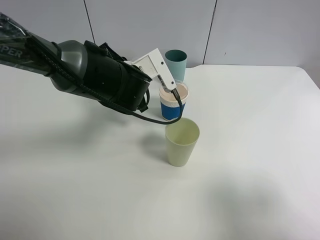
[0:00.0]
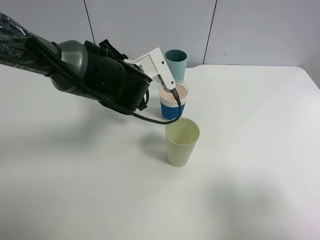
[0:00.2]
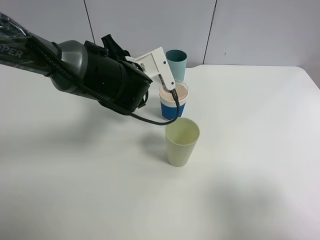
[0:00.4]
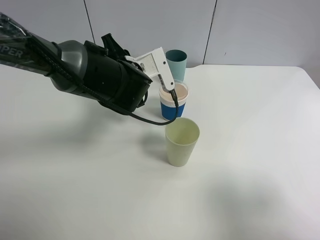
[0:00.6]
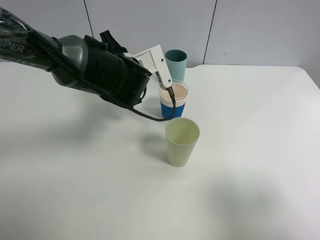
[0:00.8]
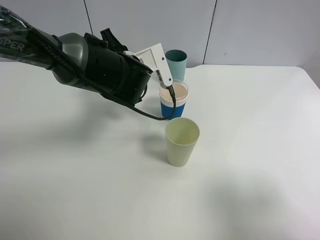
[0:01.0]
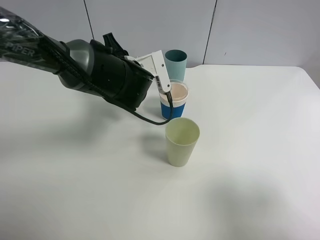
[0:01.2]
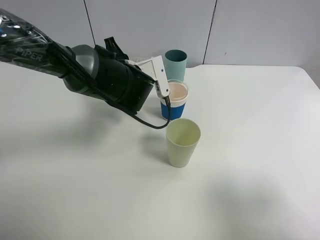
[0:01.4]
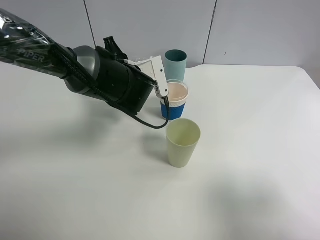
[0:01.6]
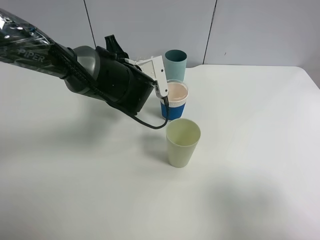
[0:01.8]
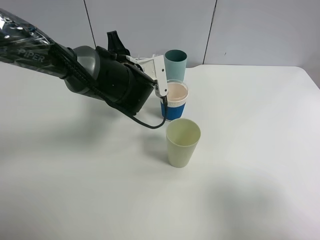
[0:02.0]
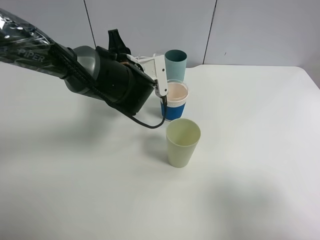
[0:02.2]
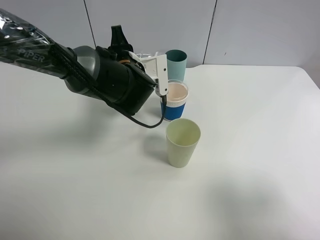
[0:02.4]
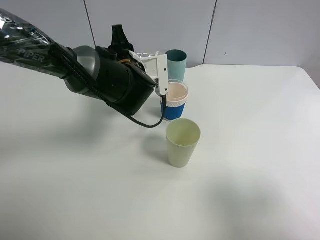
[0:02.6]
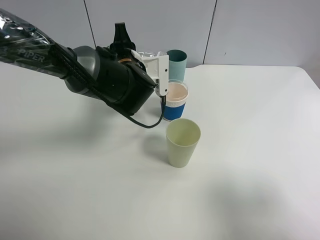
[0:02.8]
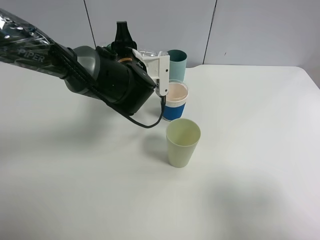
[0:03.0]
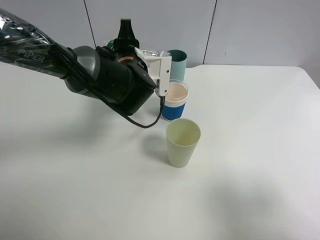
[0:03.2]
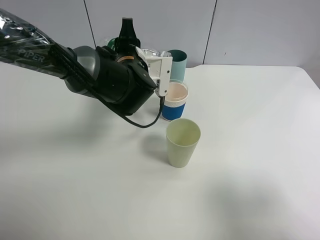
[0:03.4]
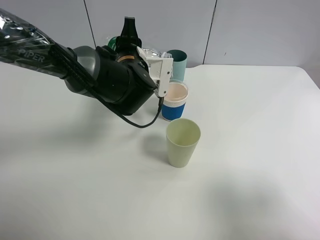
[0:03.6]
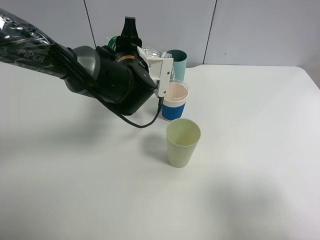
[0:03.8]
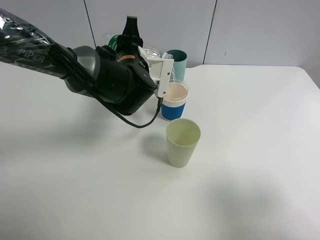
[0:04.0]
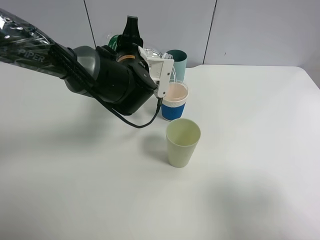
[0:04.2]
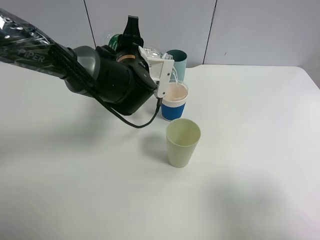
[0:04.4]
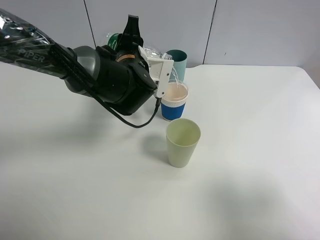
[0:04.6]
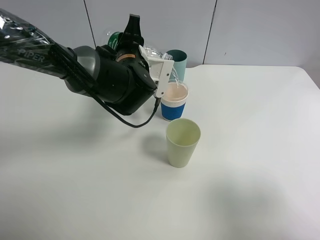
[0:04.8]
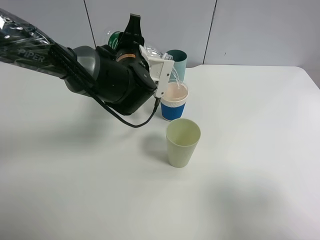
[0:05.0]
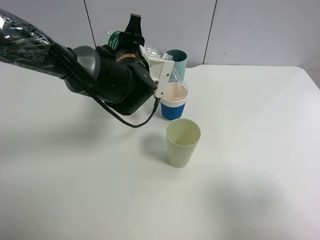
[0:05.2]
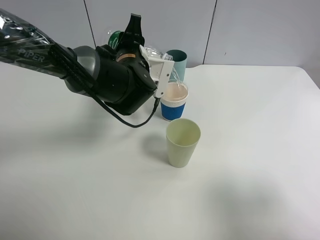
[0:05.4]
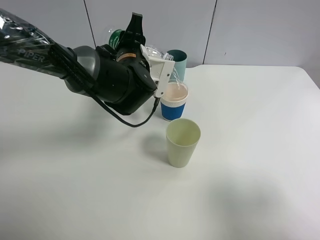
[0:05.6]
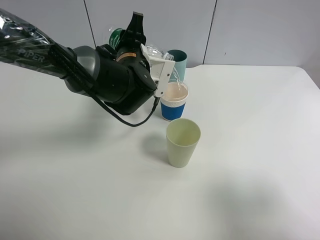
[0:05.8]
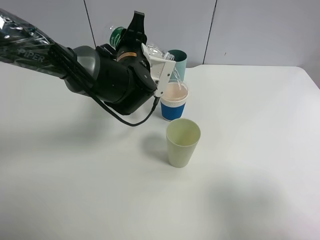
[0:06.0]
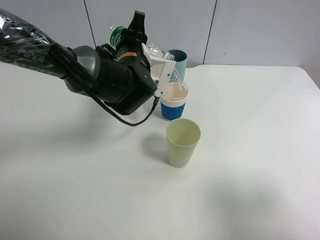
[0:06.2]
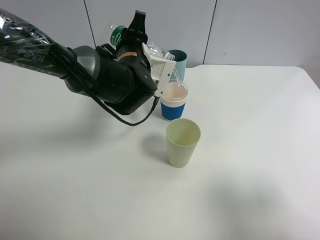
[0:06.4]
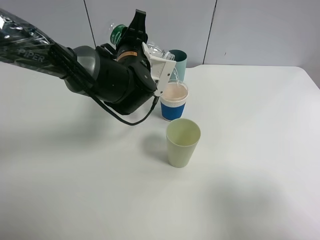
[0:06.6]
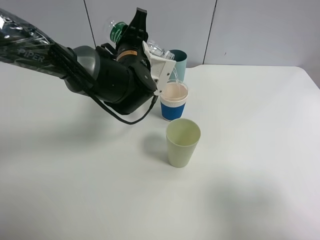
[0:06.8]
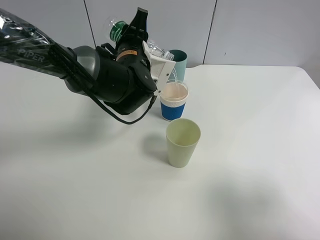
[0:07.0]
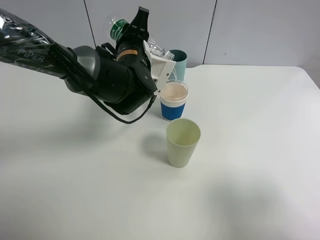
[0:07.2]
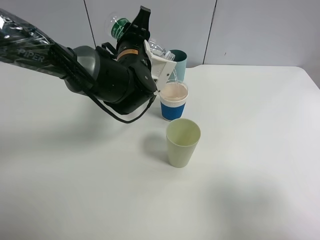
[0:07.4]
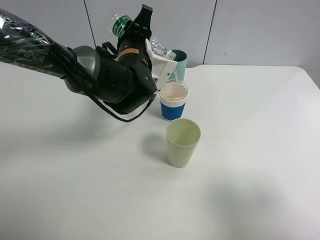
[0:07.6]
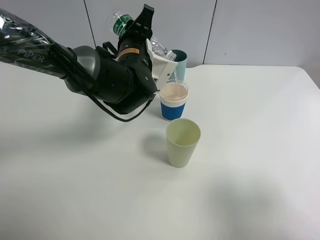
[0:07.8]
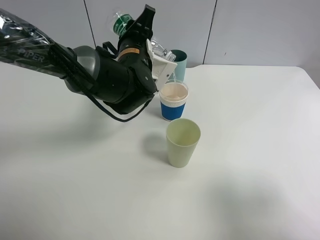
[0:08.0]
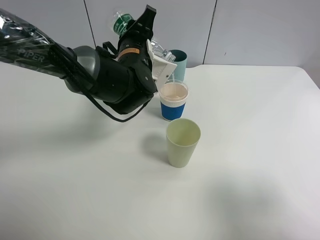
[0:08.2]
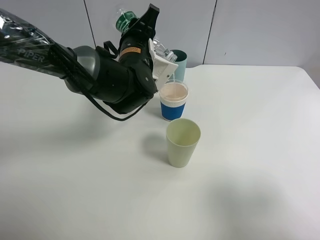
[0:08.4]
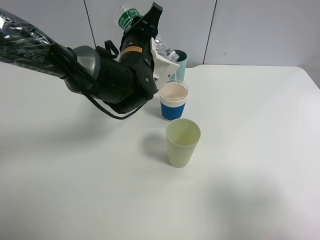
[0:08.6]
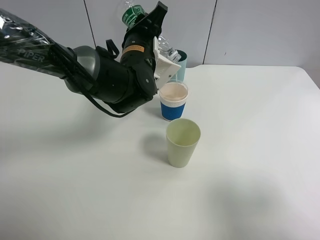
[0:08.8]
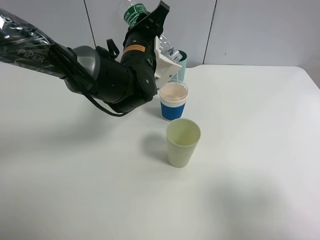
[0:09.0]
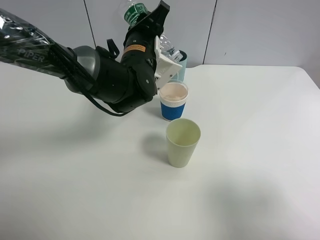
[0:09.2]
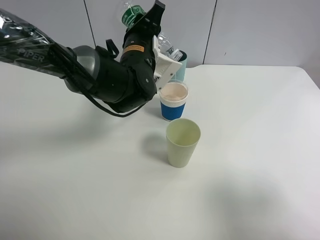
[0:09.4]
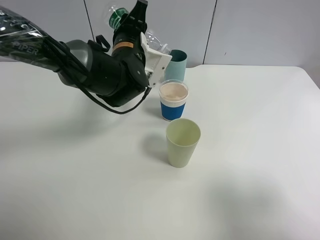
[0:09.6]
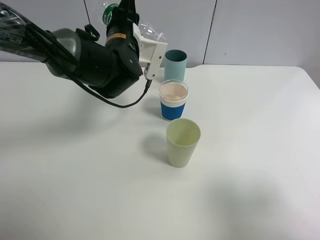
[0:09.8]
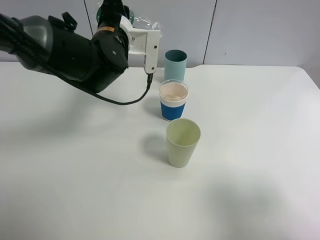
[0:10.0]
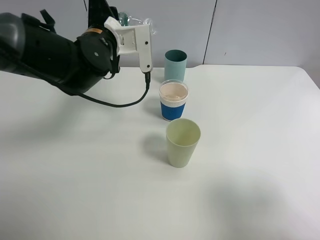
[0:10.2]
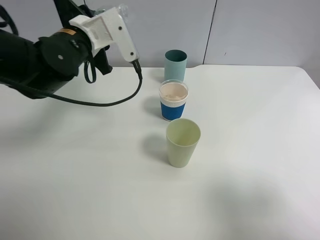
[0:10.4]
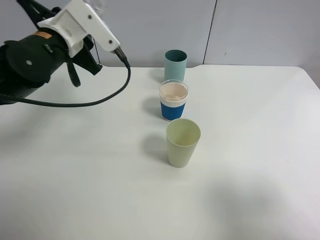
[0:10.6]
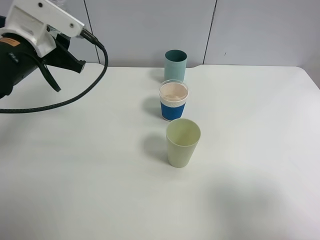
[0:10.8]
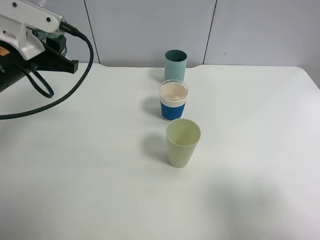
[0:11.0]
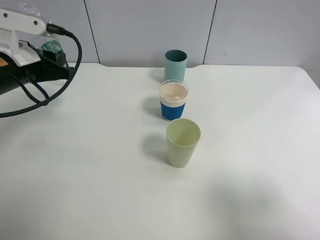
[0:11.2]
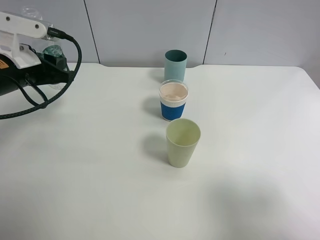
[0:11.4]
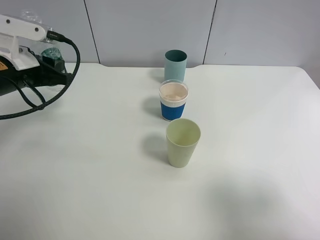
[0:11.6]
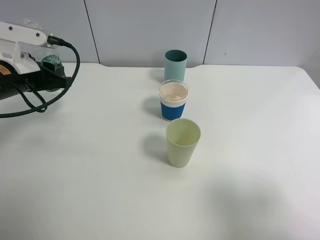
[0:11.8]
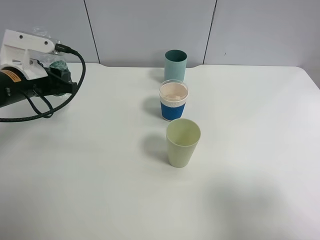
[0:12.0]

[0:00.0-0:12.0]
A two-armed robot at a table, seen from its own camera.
Task of the whole recording: use a clamp to hold the bottle of the drink, pour the beverage into a random cup, then clamp the cup containing the drink and pour the drink into another random cup.
Step, 0:00.0 to 0:10.0: Pour water into the paper cup with left gripper.
0:00.0 to 0:01.6: There are only small adjustments of the grippers.
0:01.6 to 0:03.0: The grippers stay close to where they were, moving slightly.
0:03.0 to 0:06.0: There are only small adjustments of the grippers.
0:06.0 to 0:07.6: The grippers stay close to where they were, moving slightly.
0:07.6 to 0:09.0: The grippers move only a little.
0:09.0 to 0:10.4: The left gripper travels to the left by approximately 10 cm.
0:10.4 to 0:12.0: The left gripper travels to the left and downward by approximately 10 cm.

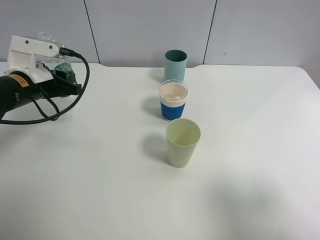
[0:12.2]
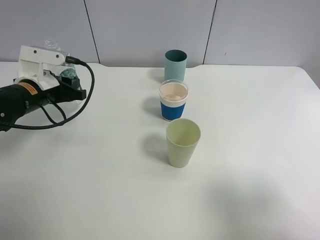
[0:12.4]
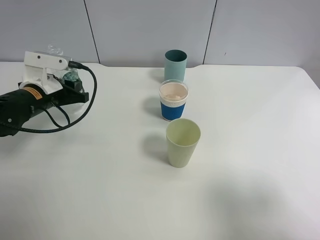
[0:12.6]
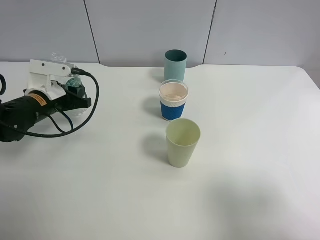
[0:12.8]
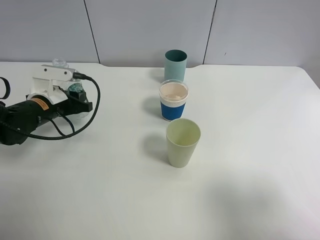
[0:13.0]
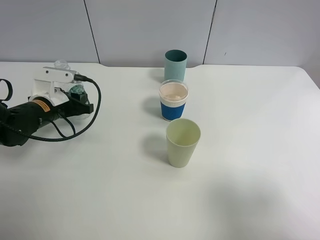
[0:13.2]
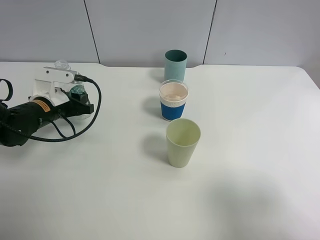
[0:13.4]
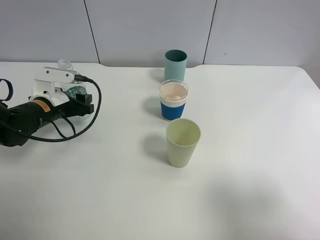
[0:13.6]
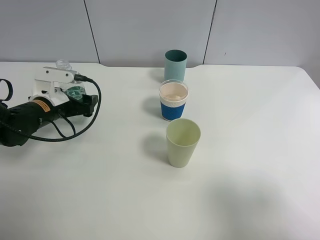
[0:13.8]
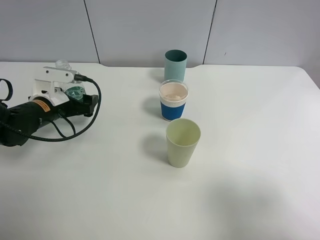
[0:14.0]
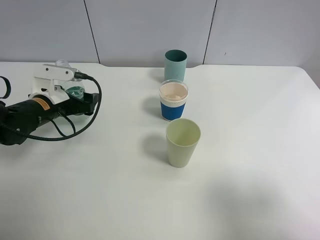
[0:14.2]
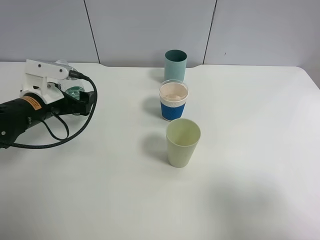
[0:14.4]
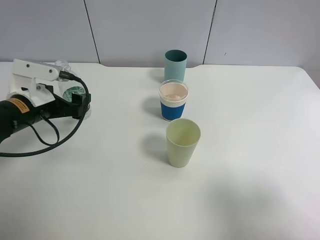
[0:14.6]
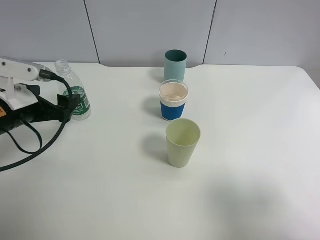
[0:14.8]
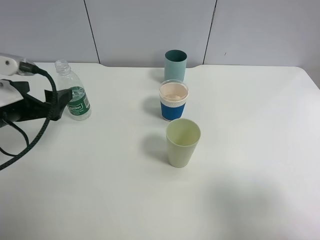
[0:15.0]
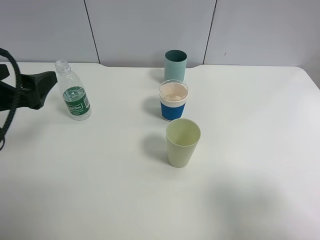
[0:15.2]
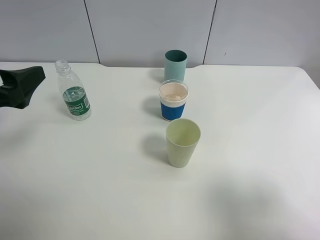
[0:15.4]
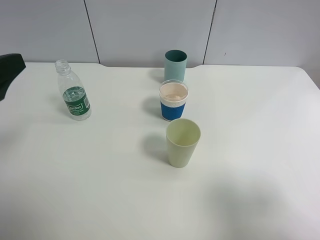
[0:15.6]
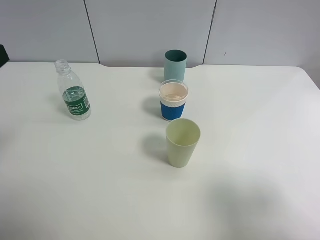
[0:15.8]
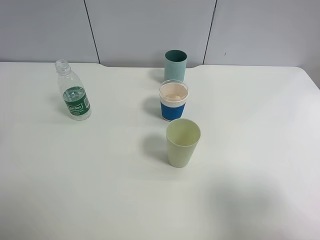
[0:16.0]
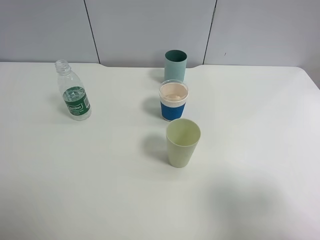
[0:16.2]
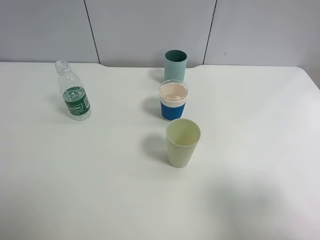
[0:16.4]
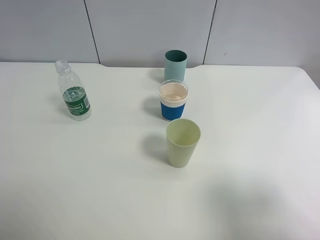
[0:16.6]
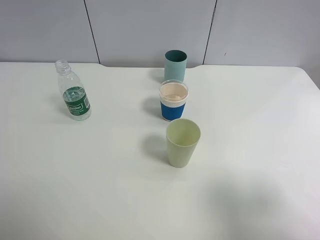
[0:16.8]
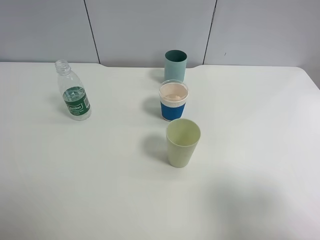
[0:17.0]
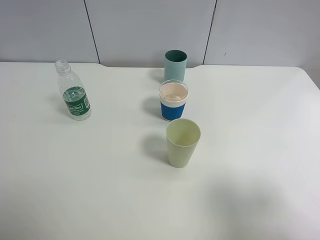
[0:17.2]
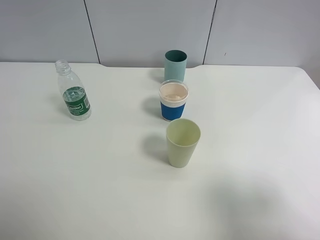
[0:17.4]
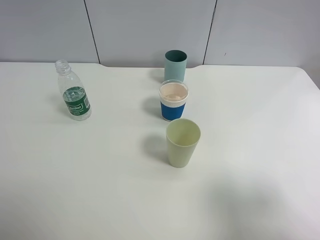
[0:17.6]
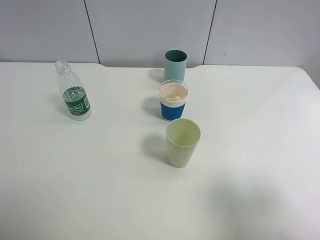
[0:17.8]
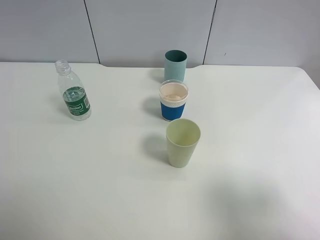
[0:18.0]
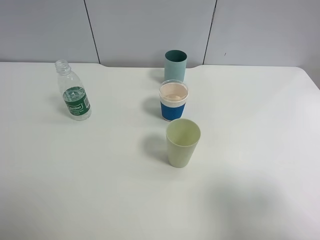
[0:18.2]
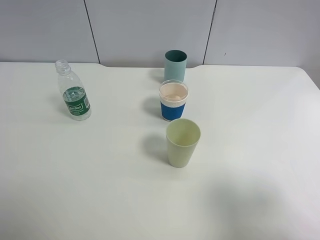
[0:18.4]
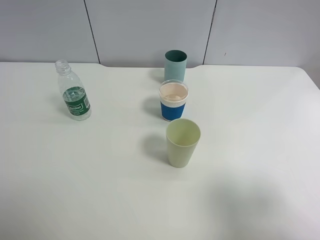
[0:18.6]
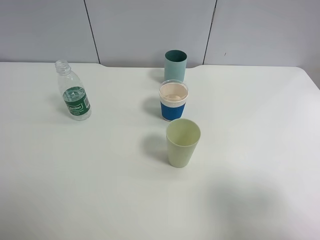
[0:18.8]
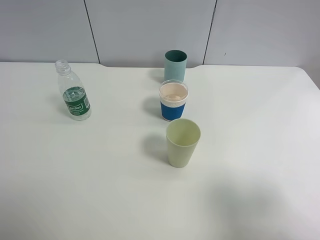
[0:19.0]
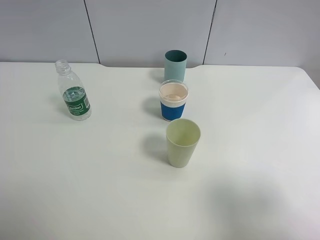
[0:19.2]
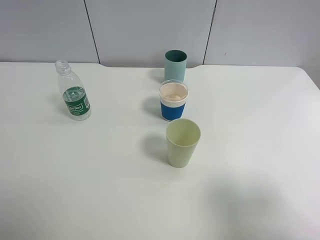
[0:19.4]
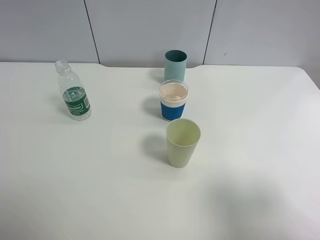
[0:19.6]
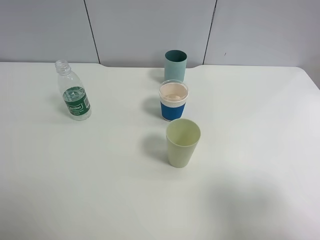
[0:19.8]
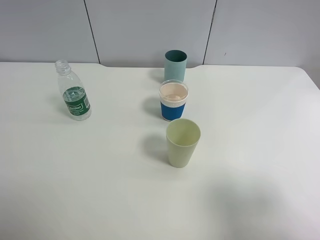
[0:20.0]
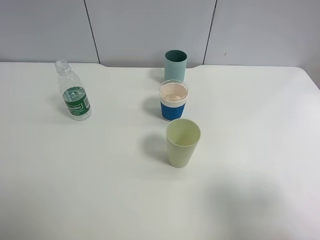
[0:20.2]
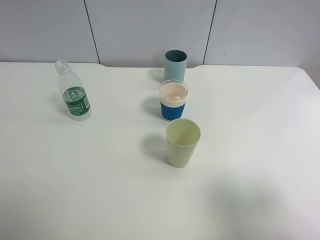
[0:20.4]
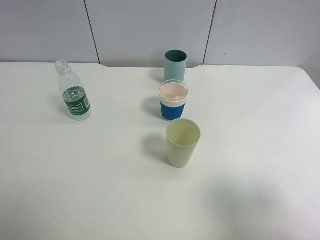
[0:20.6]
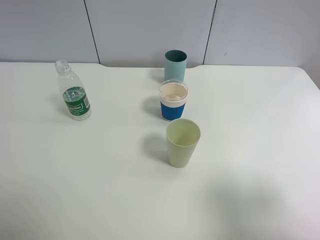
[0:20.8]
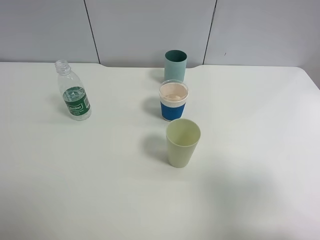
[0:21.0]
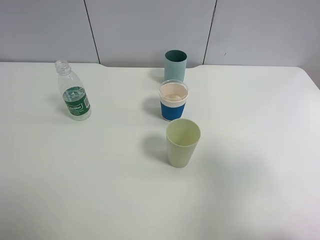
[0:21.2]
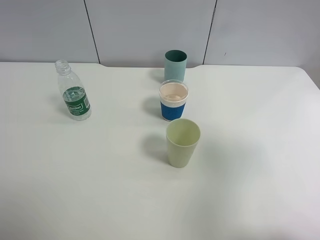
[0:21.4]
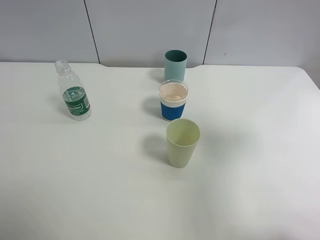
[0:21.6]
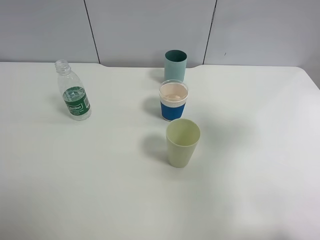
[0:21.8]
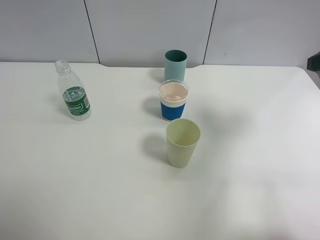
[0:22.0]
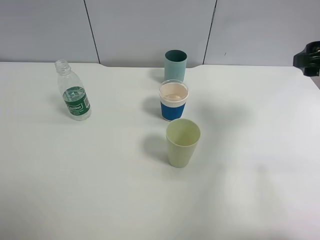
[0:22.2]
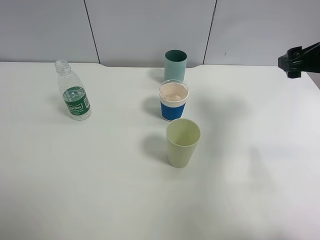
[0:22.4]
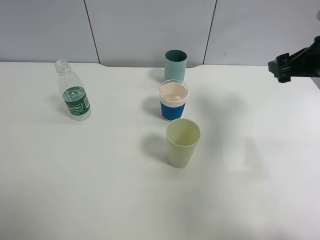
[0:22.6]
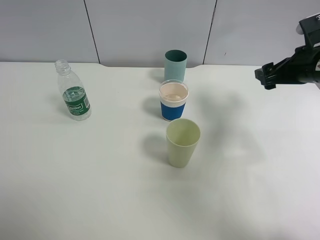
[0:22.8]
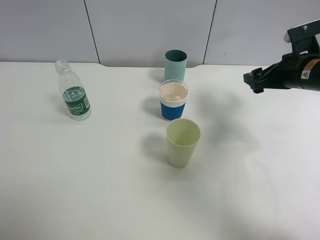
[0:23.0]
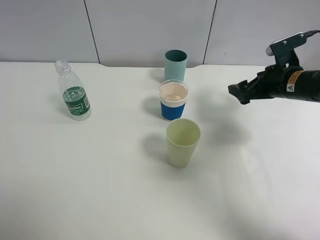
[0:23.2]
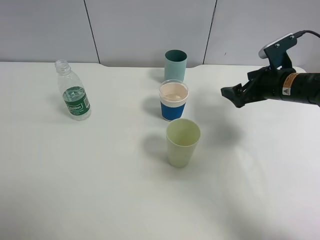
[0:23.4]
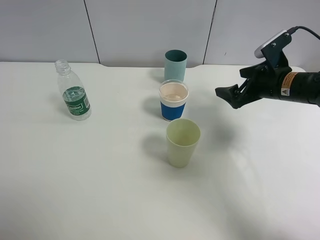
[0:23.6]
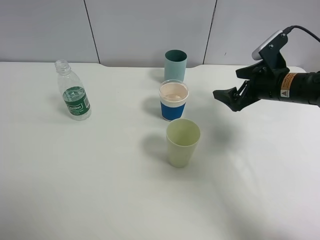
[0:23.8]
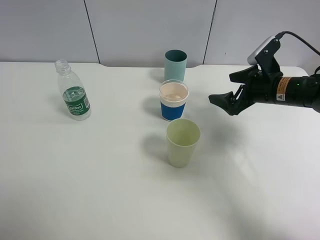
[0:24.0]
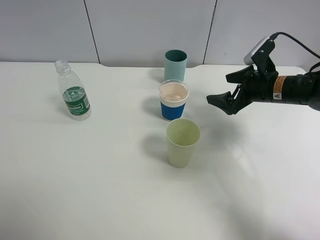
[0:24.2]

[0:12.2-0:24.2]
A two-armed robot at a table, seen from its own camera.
Task of the whole recording: use a clamp to hold the bottle of the drink, pour the beverage into a random cup, then clamp the cup containing the drink and pour the drink into another random cup.
Step, 0:12.2 to 0:14.2: Place the water bottle on the table with left gripper.
0:12.2 to 0:13.8: The left gripper is displaced downward by roughly 5 cm, and opens its fingers.
0:13.8 to 0:15.2: The left gripper travels upward and backward by some 20 cm.
0:15.2 to 0:16.6: The left gripper is displaced backward and upward by about 20 cm.
0:18.2 to 0:19.8: The two grippers keep their place.
0:19.8 to 0:21.2: The right gripper heads forward, covering roughly 5 cm.
0:21.2 to 0:22.6: The right gripper goes some 20 cm forward.
0:22.6 to 0:24.2: The right gripper goes some 10 cm downward and to the left.
